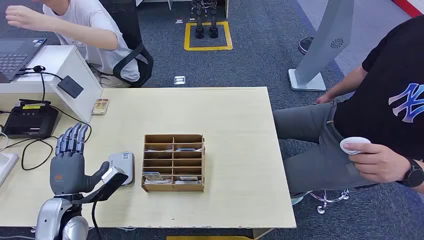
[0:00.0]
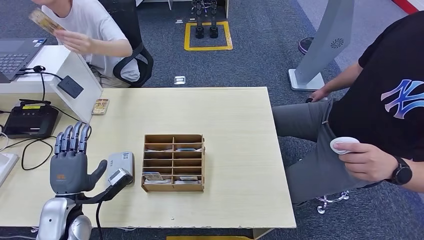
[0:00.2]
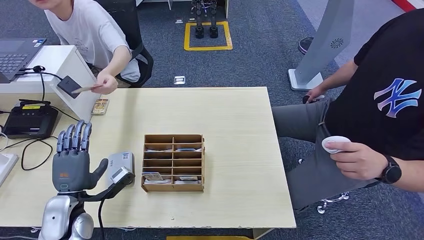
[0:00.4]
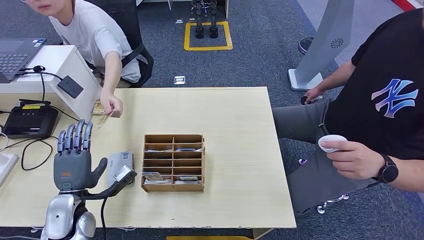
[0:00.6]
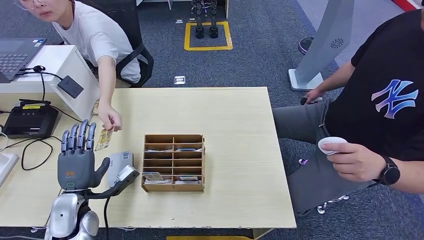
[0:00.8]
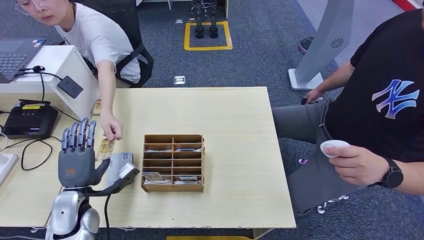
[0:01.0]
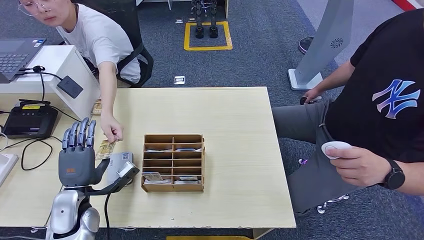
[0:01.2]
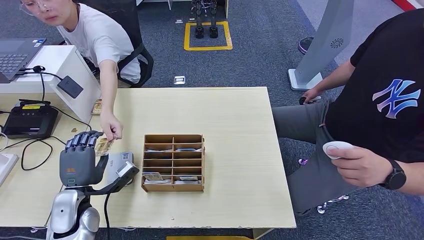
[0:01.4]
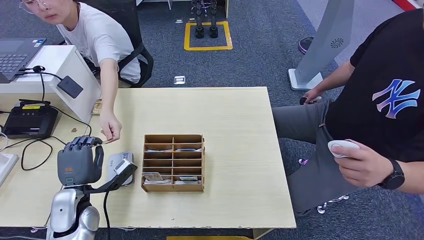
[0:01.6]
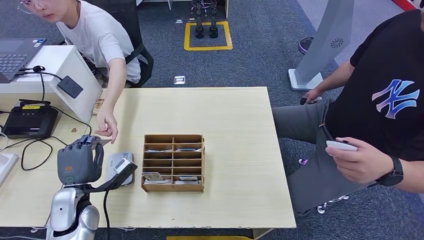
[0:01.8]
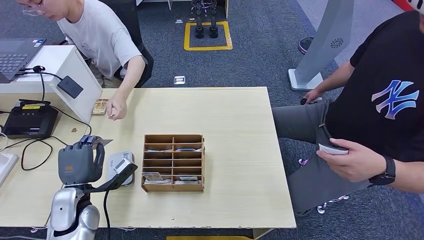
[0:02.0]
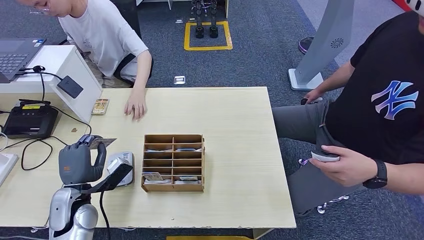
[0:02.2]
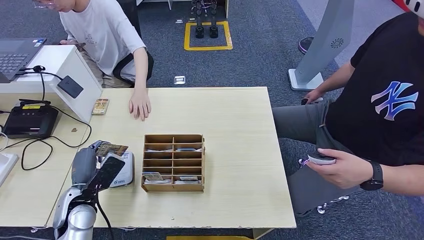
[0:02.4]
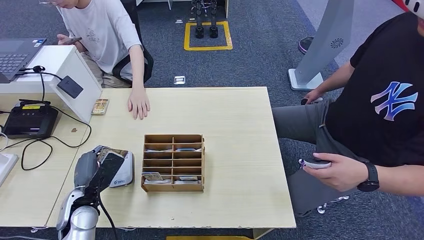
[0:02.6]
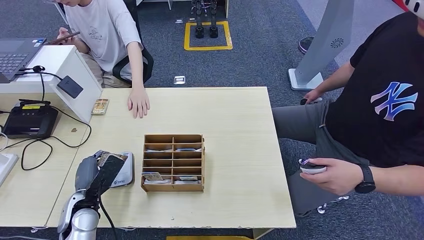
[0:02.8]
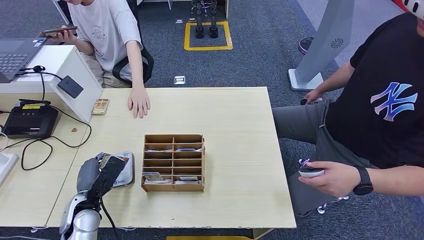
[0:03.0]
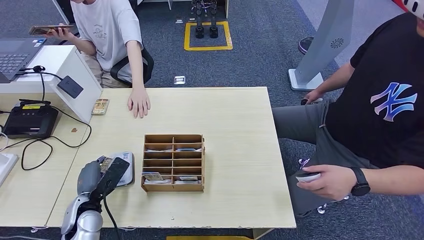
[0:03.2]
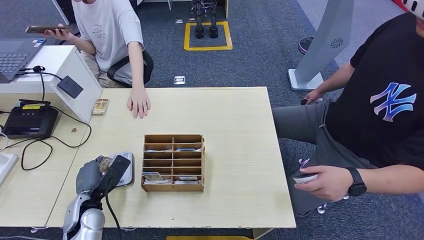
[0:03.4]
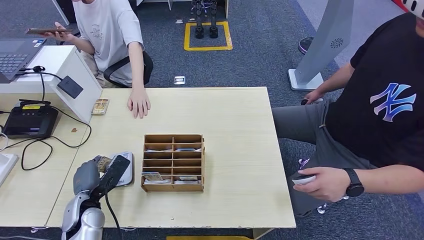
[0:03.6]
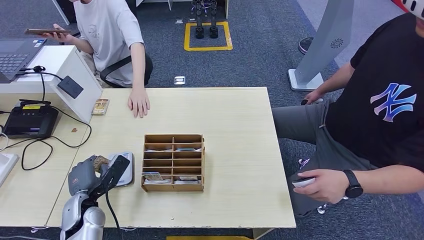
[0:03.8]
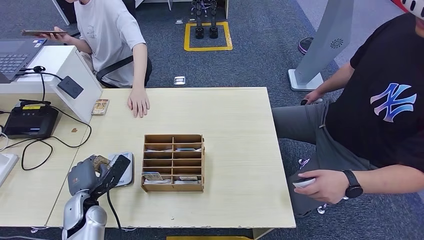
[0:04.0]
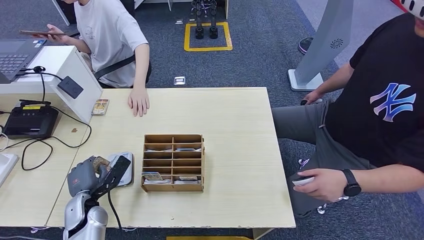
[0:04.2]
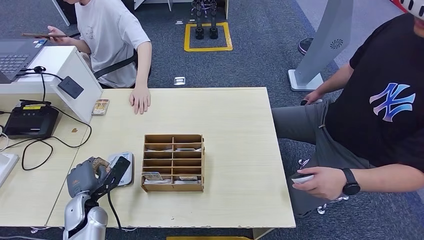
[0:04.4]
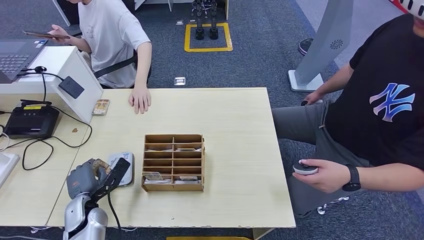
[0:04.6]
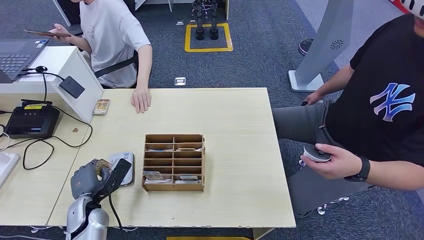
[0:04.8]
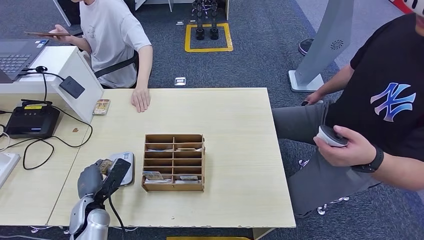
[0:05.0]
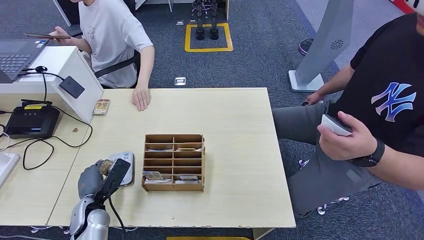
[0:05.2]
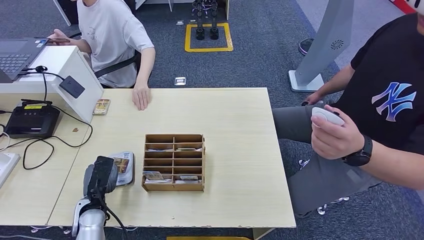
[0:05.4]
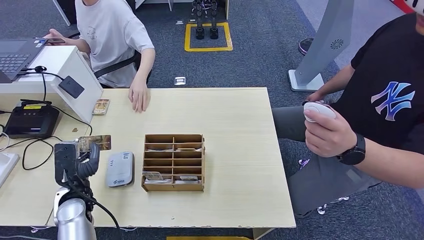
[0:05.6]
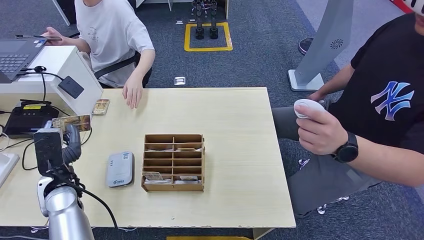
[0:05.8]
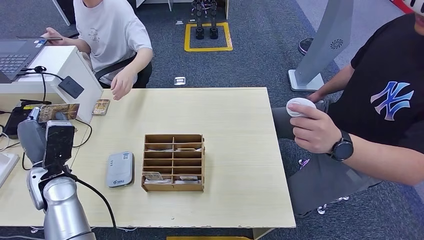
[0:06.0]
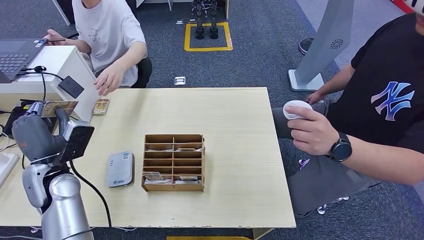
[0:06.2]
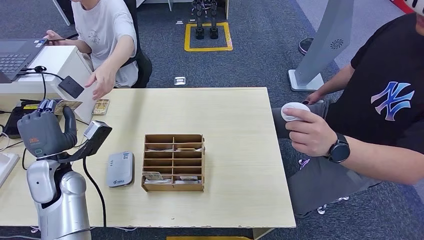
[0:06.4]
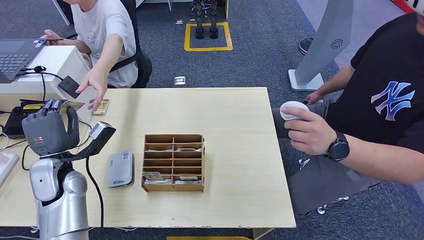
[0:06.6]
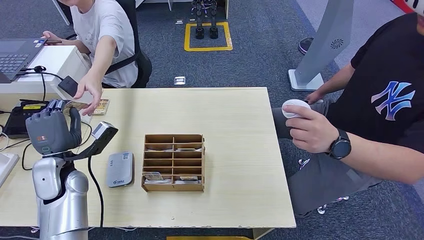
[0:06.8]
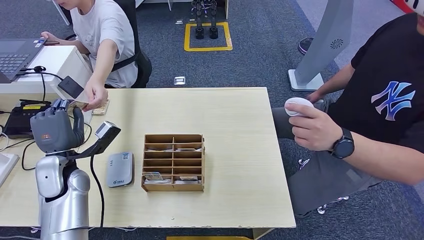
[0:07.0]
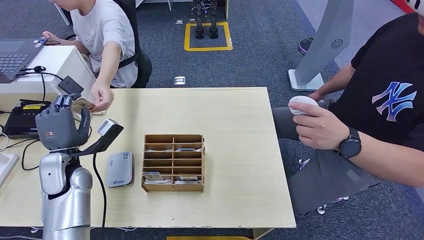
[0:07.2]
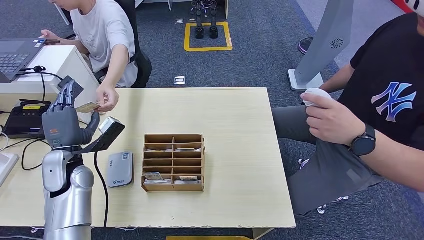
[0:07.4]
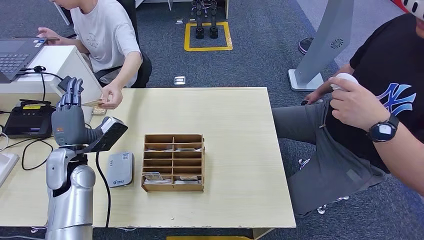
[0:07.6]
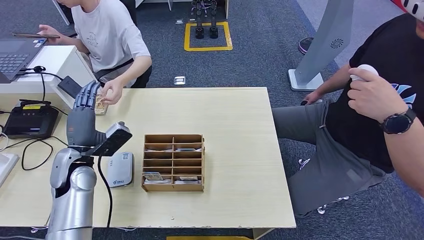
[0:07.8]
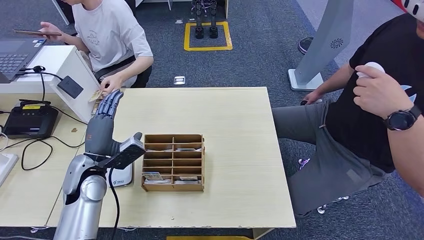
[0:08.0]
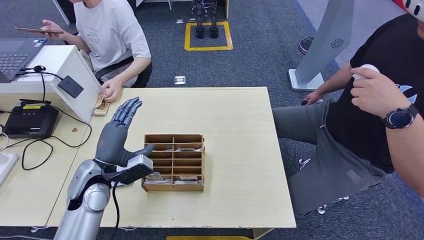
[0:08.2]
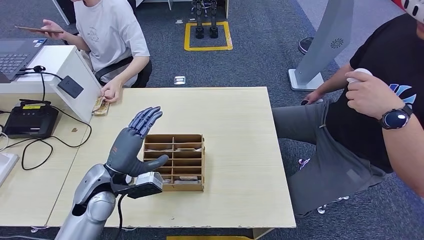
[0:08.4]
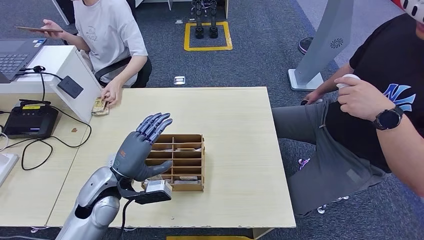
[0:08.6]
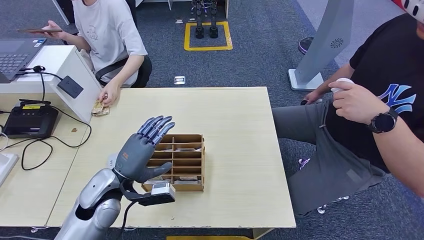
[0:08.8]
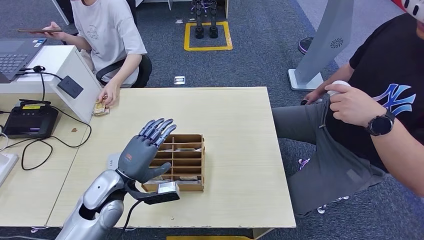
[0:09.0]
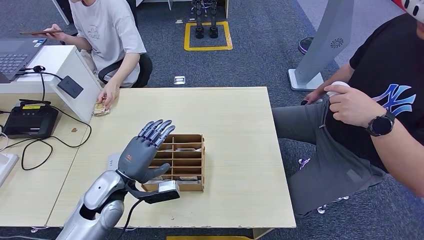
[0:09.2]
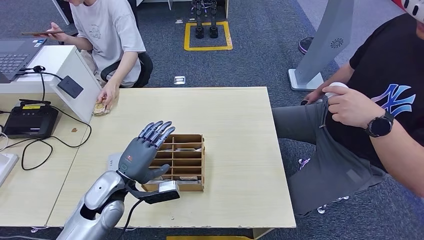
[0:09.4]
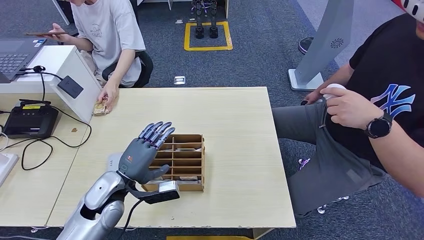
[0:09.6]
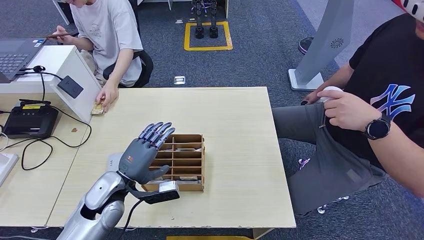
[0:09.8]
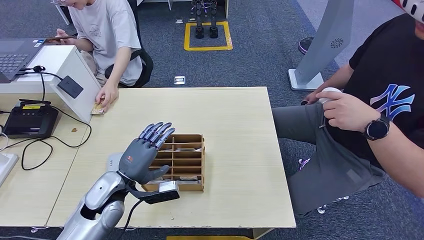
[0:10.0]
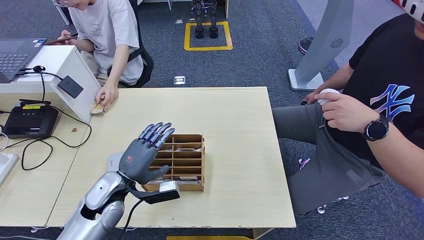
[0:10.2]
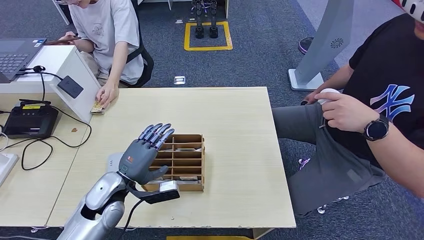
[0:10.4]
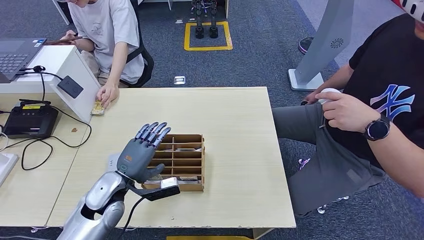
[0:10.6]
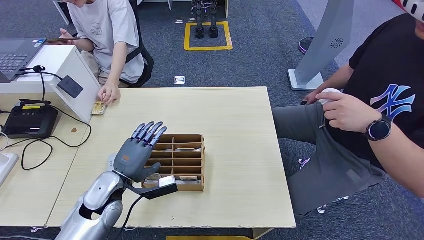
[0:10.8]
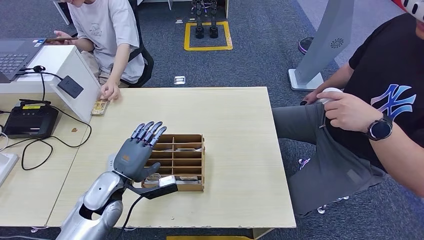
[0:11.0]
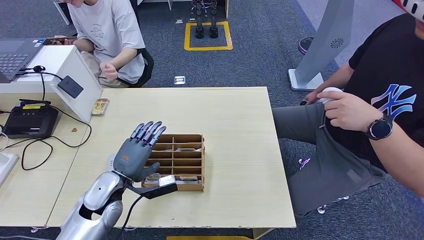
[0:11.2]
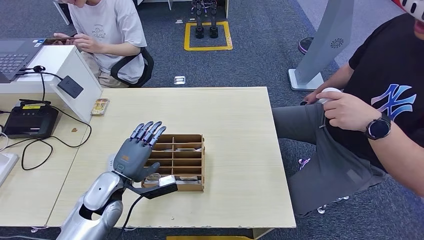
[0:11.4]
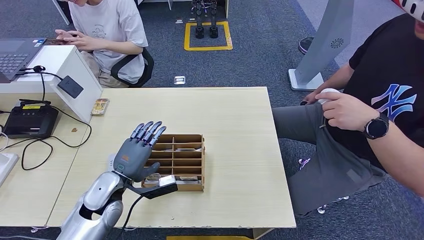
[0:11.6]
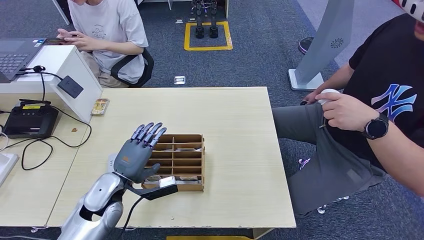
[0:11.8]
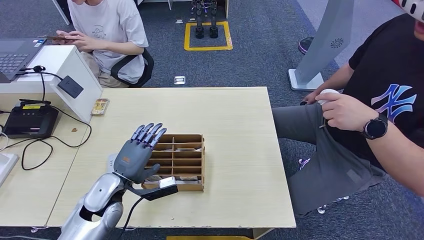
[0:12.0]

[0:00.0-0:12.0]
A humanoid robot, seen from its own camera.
Step, 0:00.0 to 0:02.2: Take the ID card from the person's hand.
Step, 0:02.4 to 0:04.6: Place the ID card on the card reader.
Step, 0:04.8 to 0:07.2: Hand the ID card to the person.
0:04.4 to 0:06.0: The left hand shifts some 15 cm upward.
0:07.6 to 0:09.0: The left hand heads to the right and backward, covering some 10 cm.
0:09.0 to 0:12.0: The hands make only small movements.

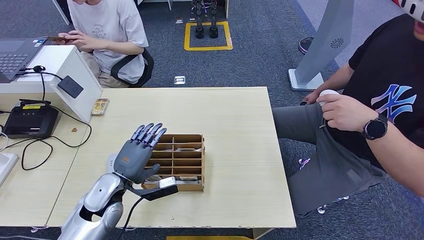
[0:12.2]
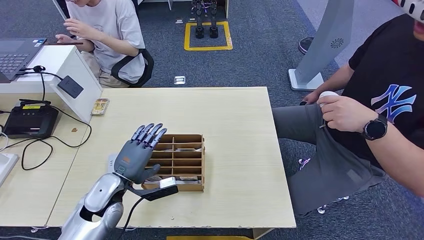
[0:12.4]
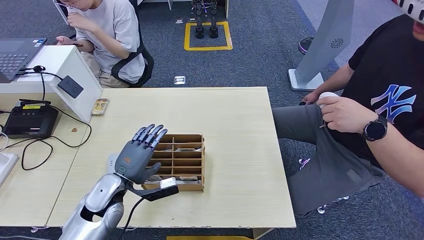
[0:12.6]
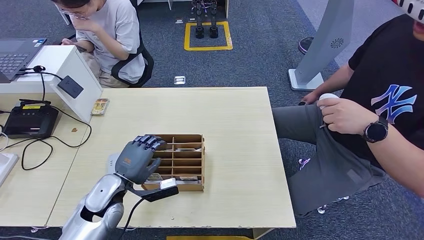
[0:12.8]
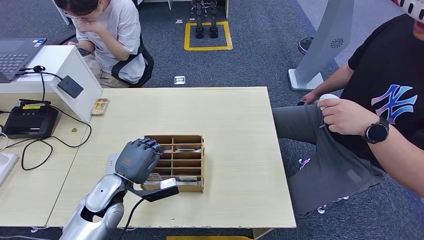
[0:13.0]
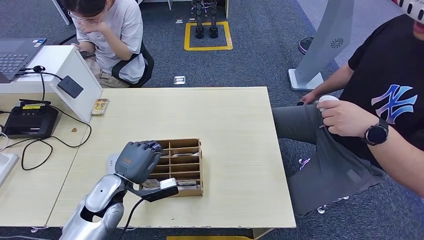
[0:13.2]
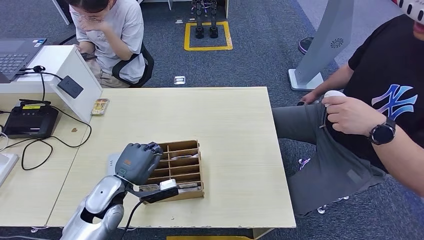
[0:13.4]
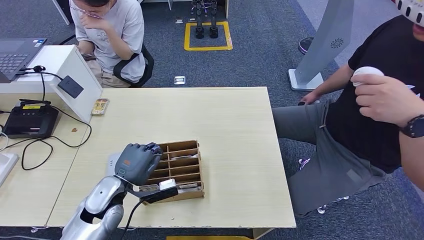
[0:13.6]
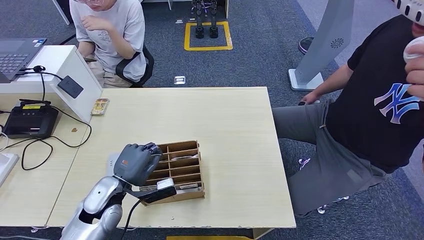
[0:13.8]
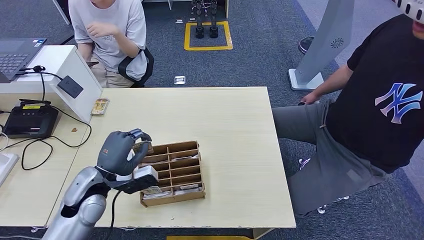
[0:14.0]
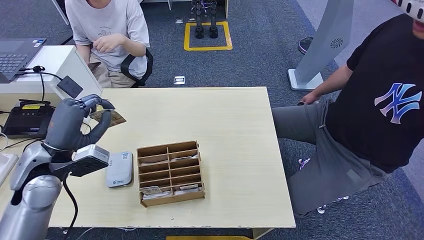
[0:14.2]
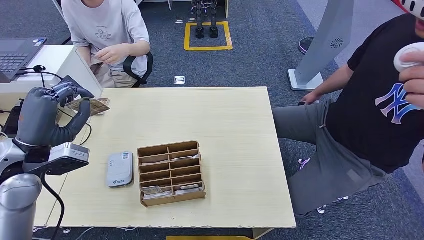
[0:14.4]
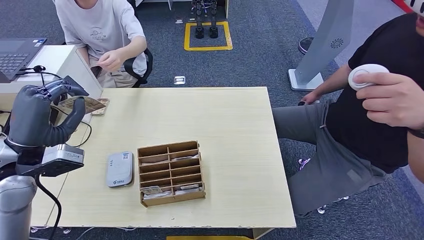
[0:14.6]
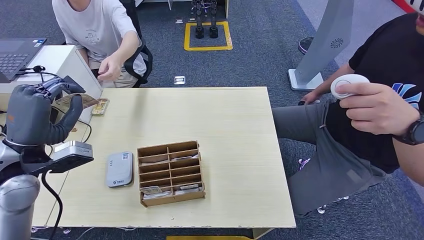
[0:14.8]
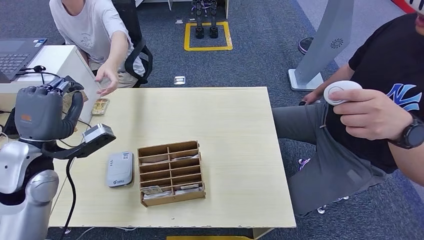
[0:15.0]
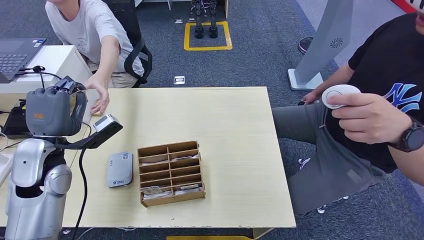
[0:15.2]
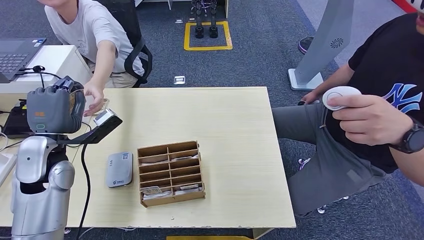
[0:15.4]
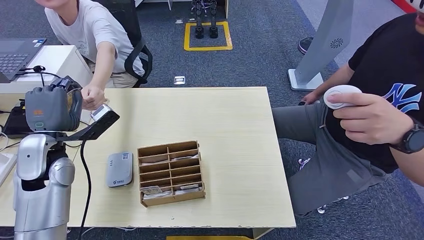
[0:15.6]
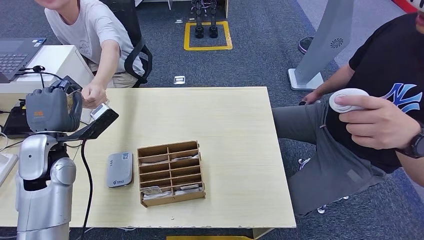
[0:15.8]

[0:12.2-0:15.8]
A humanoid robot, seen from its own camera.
Step, 0:14.2 to 0:15.8: Hand the room key to the person.
0:12.2 to 0:14.0: There are only small adjustments of the hands.
